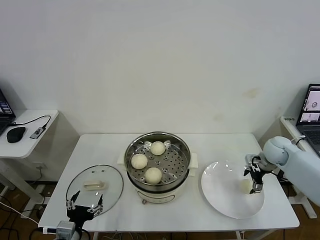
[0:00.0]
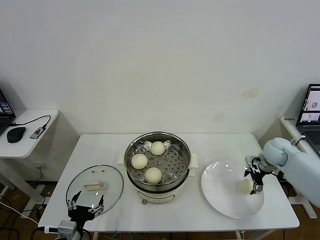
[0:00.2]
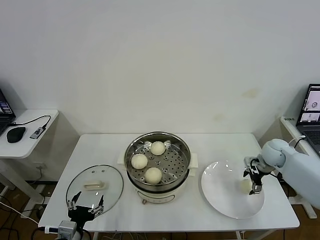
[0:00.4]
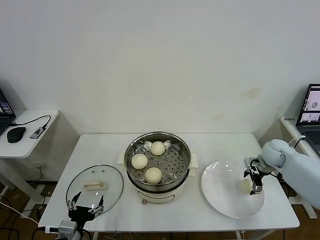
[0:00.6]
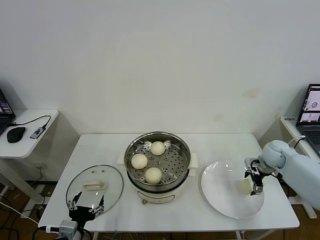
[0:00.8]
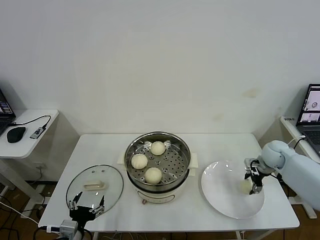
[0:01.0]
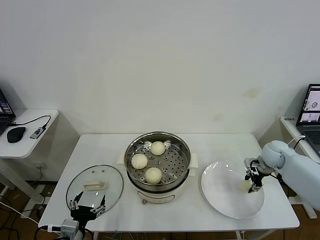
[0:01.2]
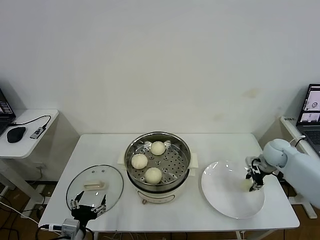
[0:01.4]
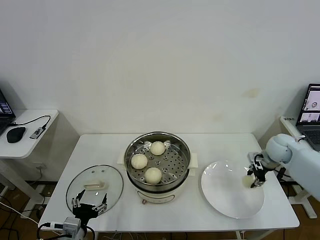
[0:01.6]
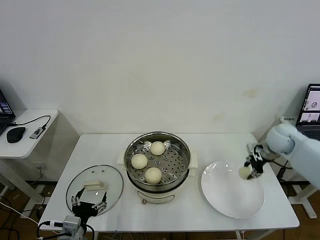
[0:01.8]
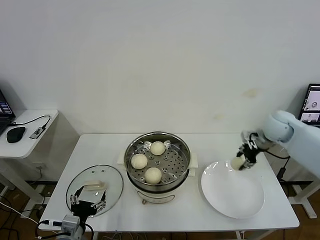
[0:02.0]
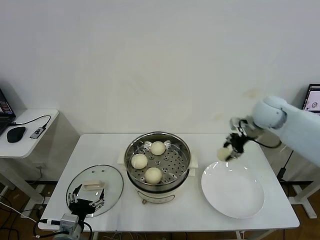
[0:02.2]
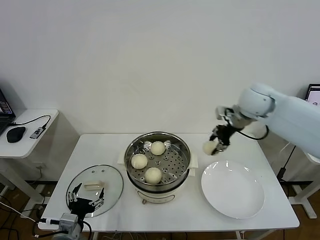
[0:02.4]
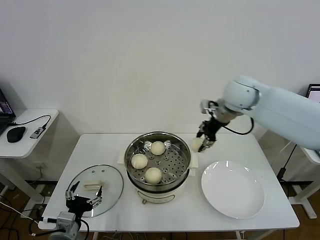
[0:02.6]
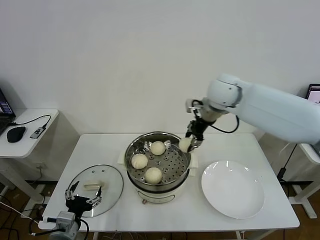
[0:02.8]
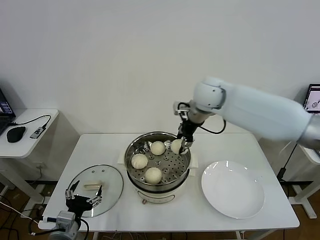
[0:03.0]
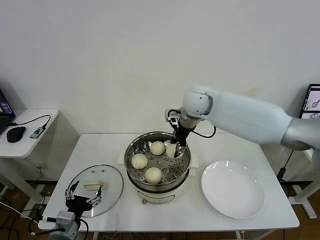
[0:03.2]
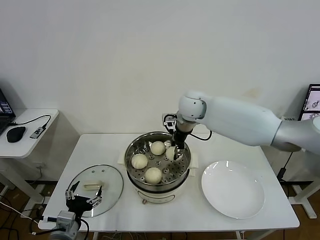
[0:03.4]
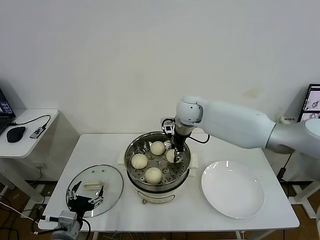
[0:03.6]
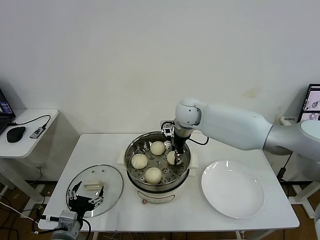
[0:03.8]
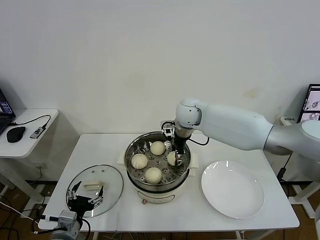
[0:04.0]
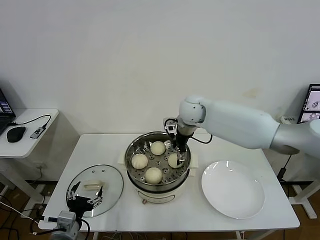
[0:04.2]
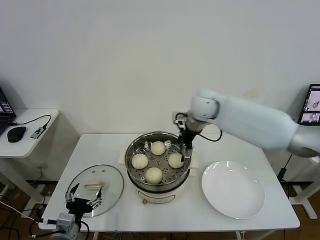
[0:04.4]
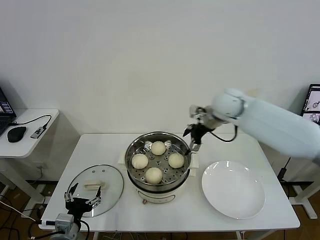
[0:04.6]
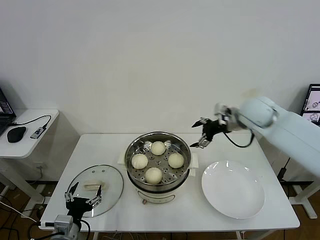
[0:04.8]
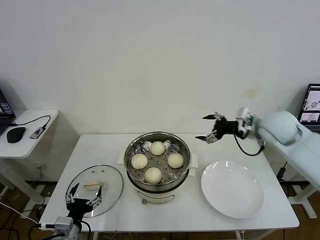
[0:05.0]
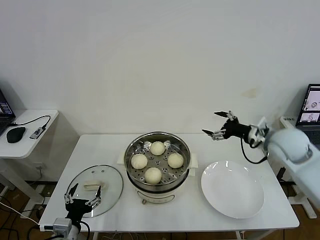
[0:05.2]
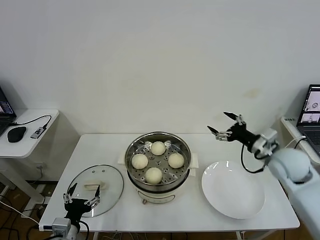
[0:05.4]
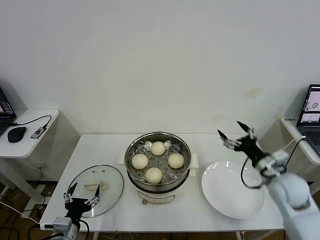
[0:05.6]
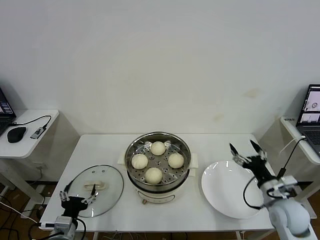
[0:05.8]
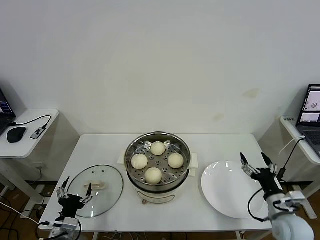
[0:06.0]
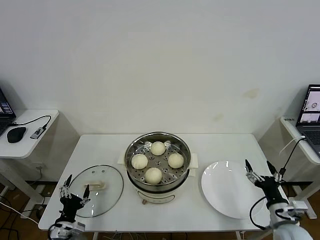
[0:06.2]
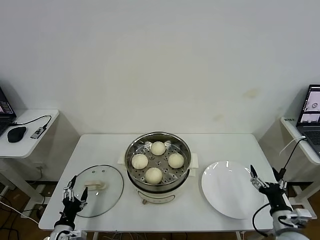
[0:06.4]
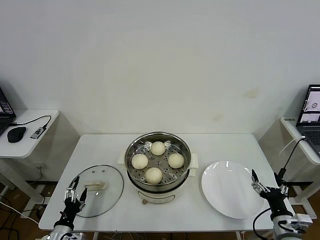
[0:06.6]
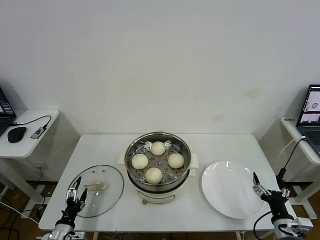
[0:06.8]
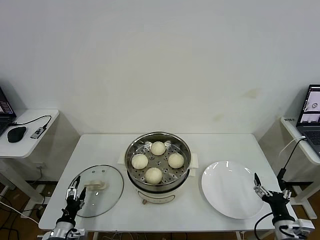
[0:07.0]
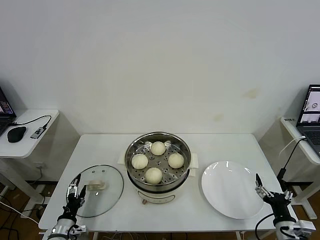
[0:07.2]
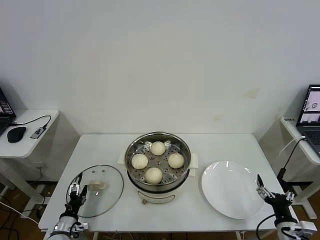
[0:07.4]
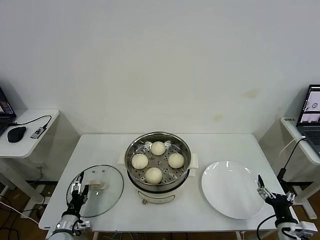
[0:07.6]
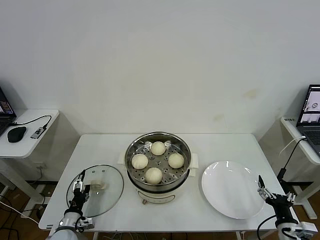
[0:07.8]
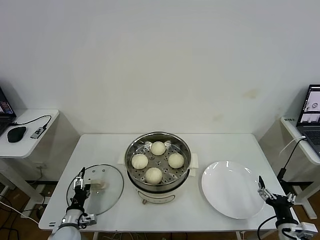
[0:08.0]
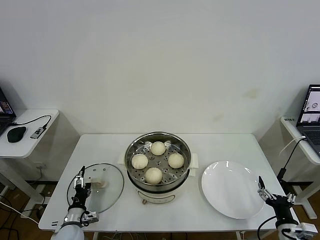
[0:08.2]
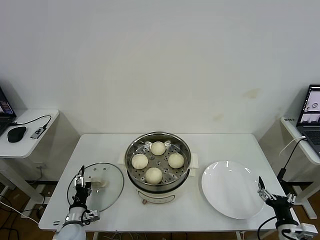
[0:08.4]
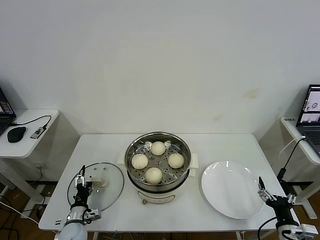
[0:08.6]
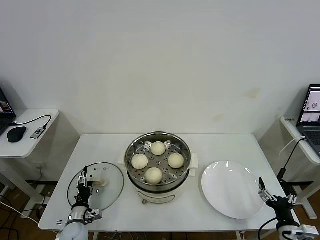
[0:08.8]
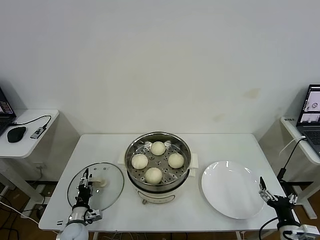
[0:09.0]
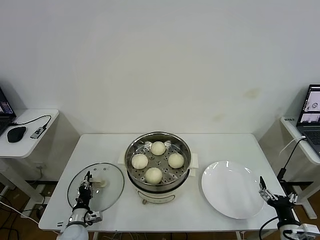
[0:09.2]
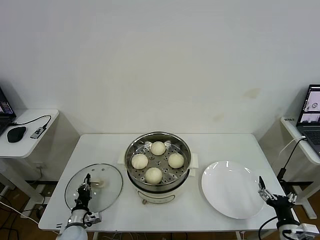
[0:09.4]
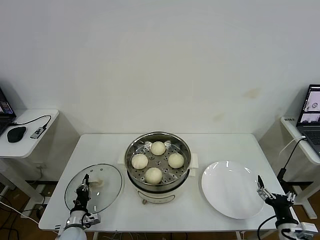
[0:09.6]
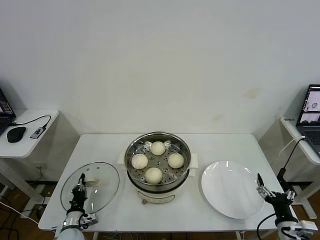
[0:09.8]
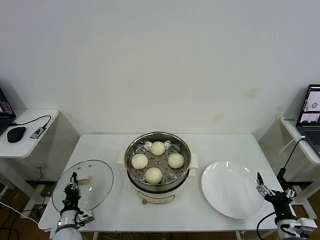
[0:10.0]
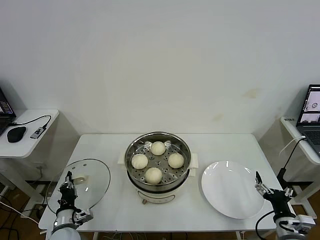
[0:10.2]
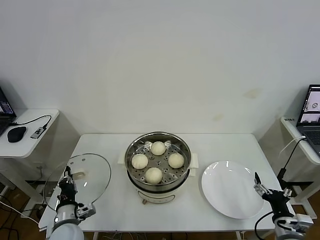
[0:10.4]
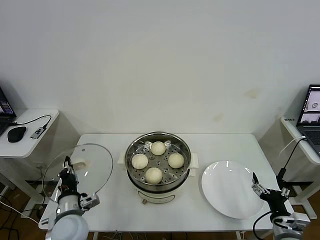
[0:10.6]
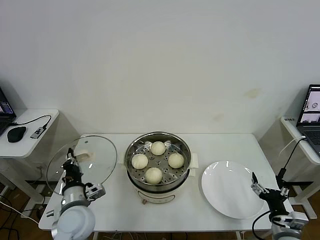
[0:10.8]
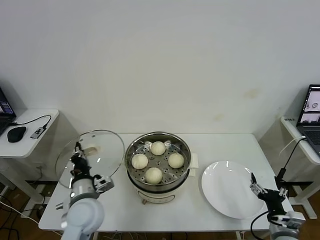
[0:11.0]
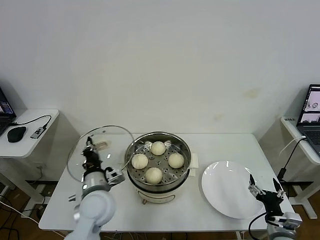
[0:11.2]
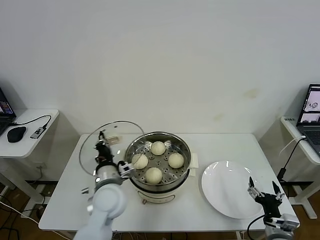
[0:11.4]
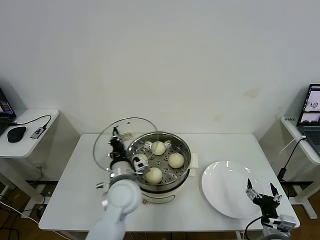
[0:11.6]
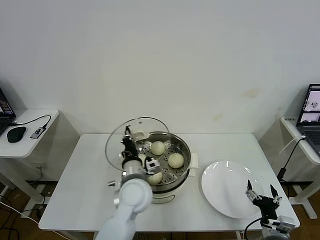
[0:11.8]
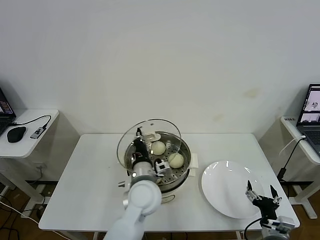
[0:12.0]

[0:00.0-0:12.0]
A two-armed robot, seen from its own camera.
Task of the whole recording: take steamed baozi put them in steamer then cover it.
Step, 0:01.4 to 0:04.2: Place the baozi on the steamer with right gripper.
Step, 0:04.4 to 0:09.6: Grasp the pot lid with left gripper.
0:00.0 to 0:01.6: The right gripper closes its fingers.
0:01.6 to 0:03.0: The right gripper shifts approximately 35 cm to the left and upward.
0:03.0 to 0:04.4: The right gripper opens.
0:04.4 to 0:06.0: The right gripper goes approximately 50 cm backward, to the right and downward. The left gripper is displaced downward by approximately 5 cm.
0:06.0 to 0:07.6: The right gripper heads backward, covering some 5 cm; the left gripper is displaced downward by roughly 10 cm.
0:07.6 to 0:09.0: The left gripper ends up about 5 cm from where it was, and closes its fingers.
0:09.0 to 0:10.4: The left gripper heads upward, covering about 10 cm, and closes its fingers.
0:10.4 to 0:12.0: The left gripper shifts some 30 cm to the right and upward.

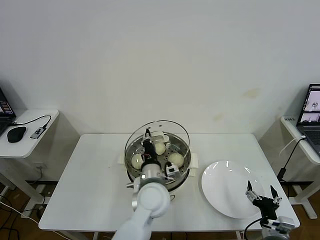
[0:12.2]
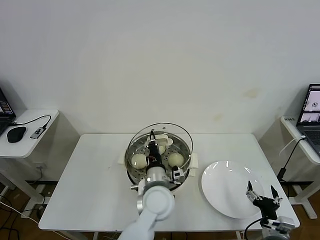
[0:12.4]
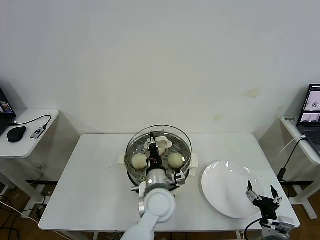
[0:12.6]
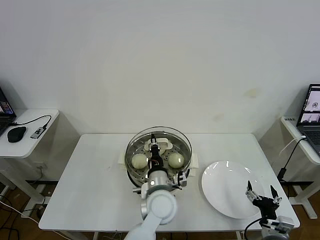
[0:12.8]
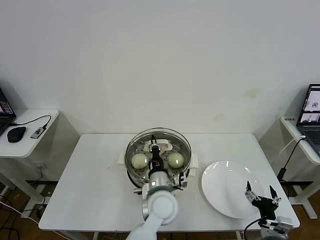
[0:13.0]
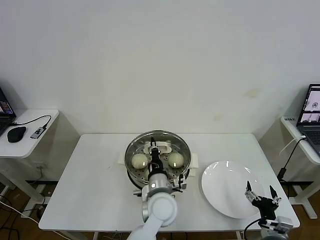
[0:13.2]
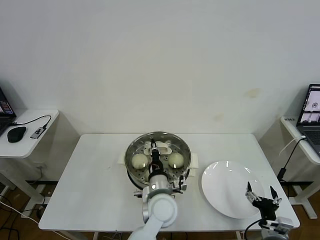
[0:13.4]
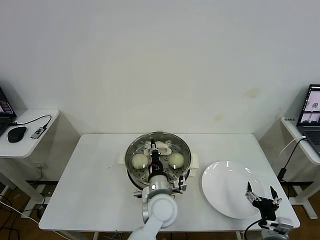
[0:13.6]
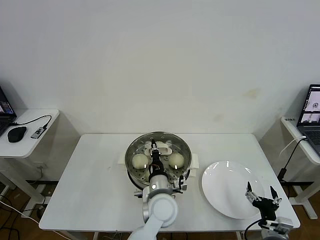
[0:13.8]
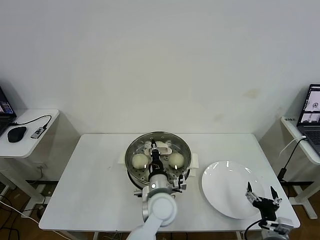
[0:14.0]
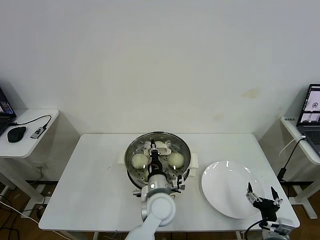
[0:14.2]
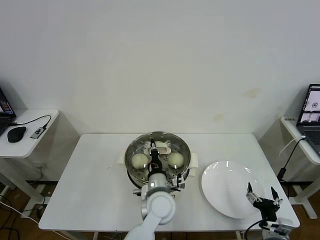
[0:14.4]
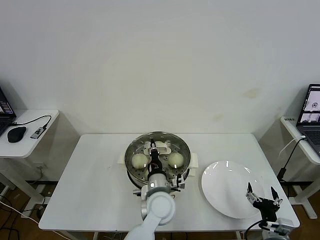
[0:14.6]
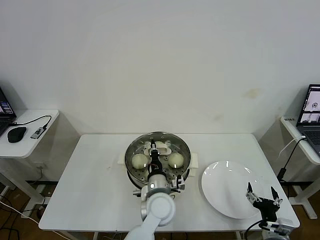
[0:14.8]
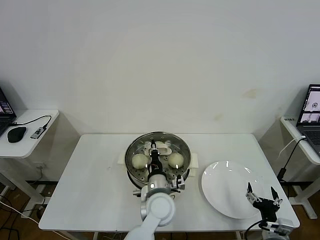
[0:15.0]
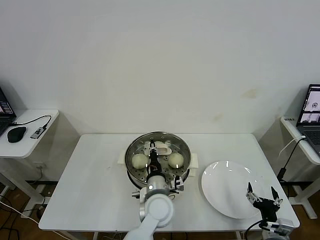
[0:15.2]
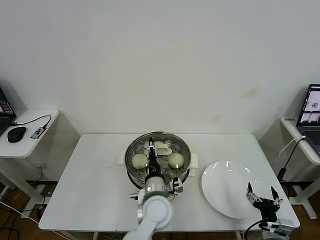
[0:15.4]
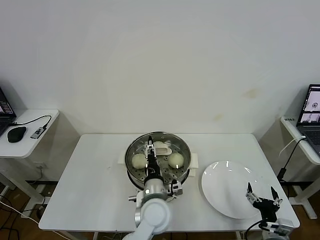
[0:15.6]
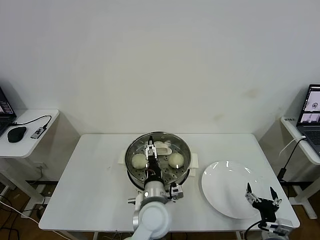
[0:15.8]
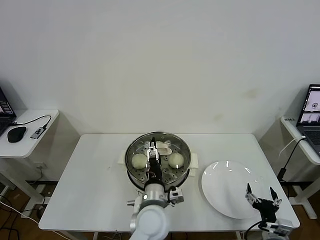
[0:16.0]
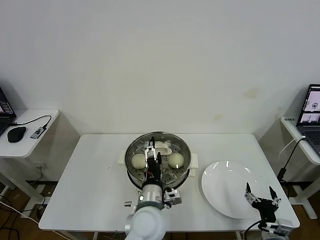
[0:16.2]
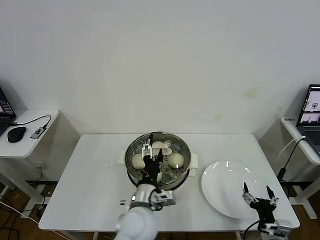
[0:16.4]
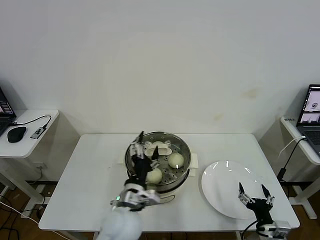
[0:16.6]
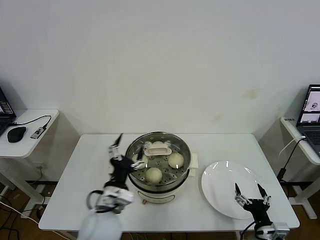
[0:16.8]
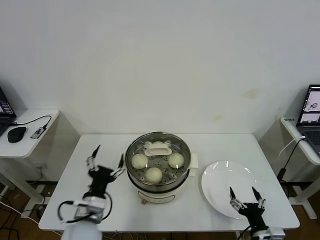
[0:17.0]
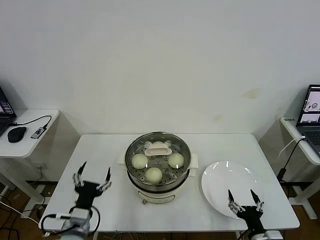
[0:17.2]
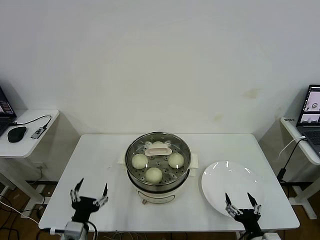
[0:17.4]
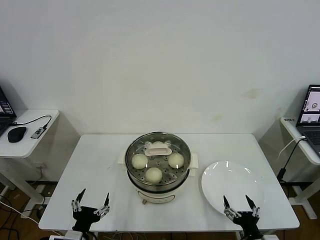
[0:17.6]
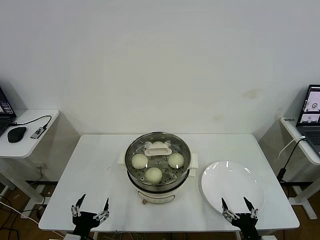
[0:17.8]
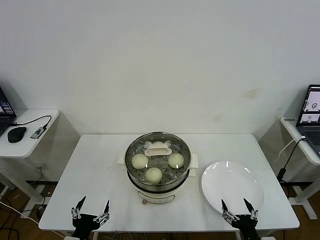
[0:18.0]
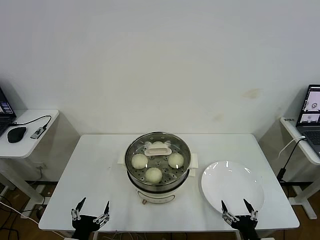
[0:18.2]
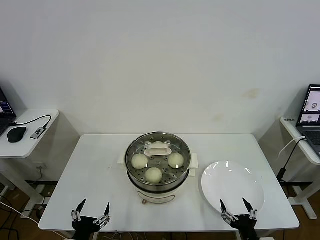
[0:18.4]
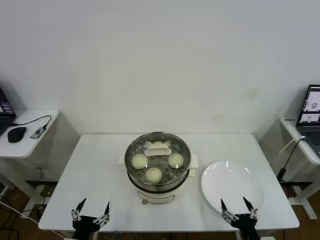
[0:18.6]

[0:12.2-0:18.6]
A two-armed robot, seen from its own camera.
Task of the whole recording: take steamed baozi put them in steamer then cover it.
Step, 0:12.2 to 0:16.0: Place the pot lid on the steamer with left gripper.
0:12.2 to 0:13.8: The left gripper moves approximately 5 cm.
0:13.8 to 0:15.4: The left gripper opens its fingers.
0:15.4 to 0:17.0: The left gripper travels to the left and backward by approximately 20 cm, and opens its fingers.
0:17.0 to 0:18.6: The left gripper moves backward, to the left and downward, roughly 15 cm.
